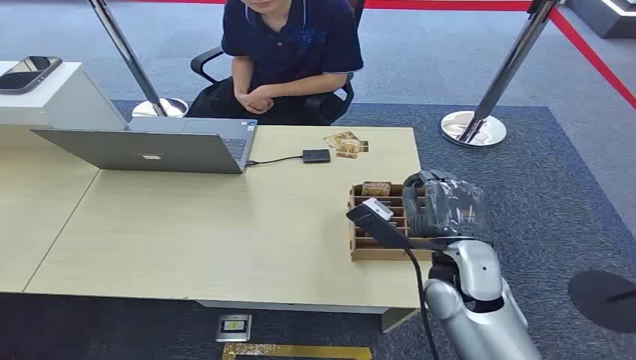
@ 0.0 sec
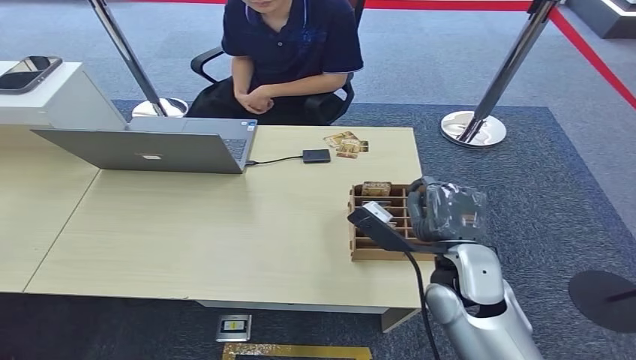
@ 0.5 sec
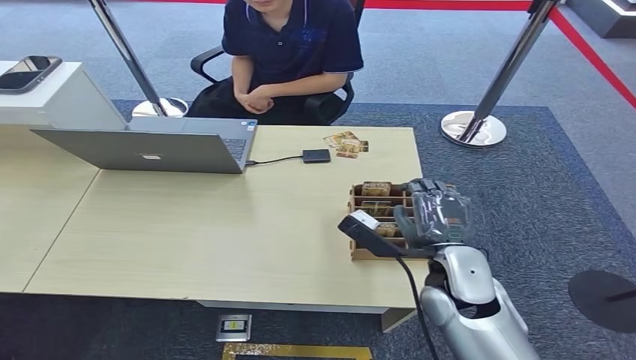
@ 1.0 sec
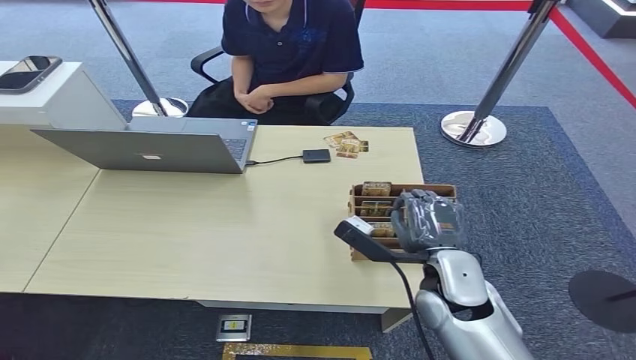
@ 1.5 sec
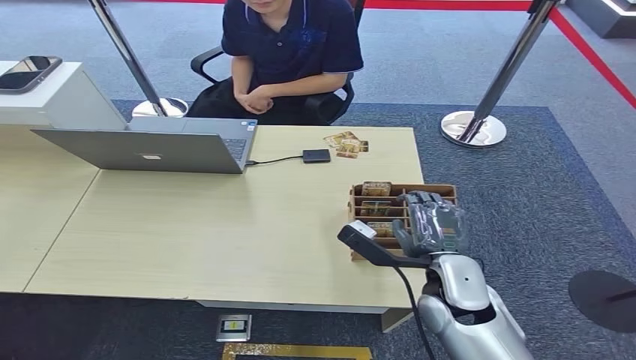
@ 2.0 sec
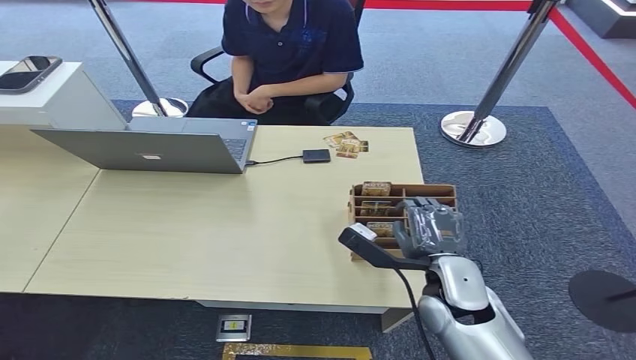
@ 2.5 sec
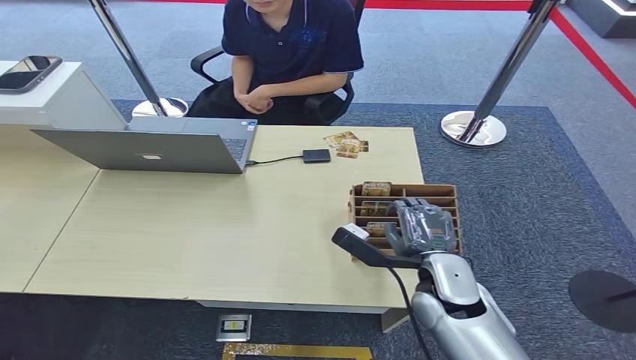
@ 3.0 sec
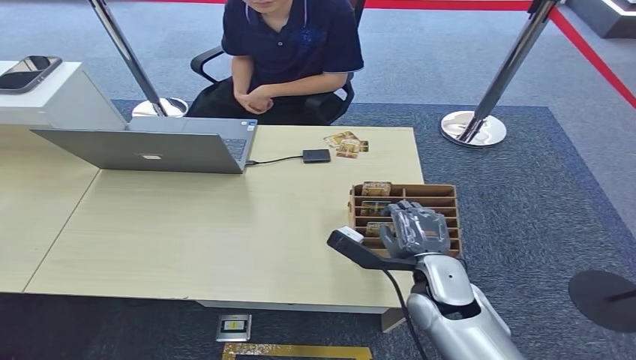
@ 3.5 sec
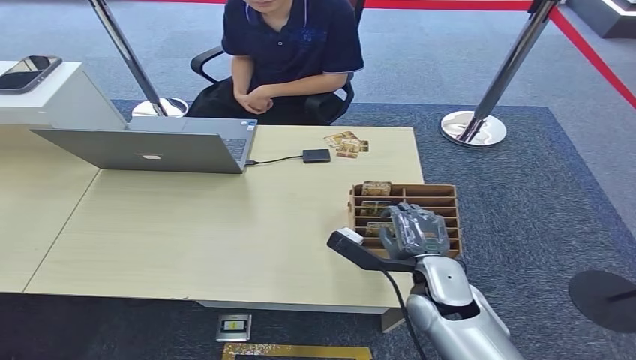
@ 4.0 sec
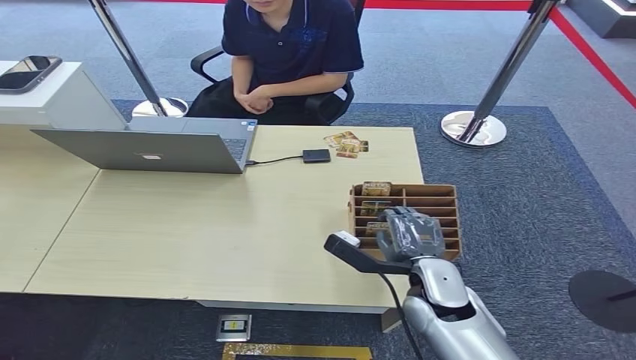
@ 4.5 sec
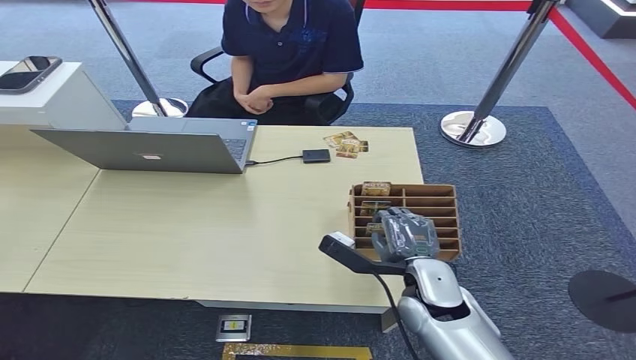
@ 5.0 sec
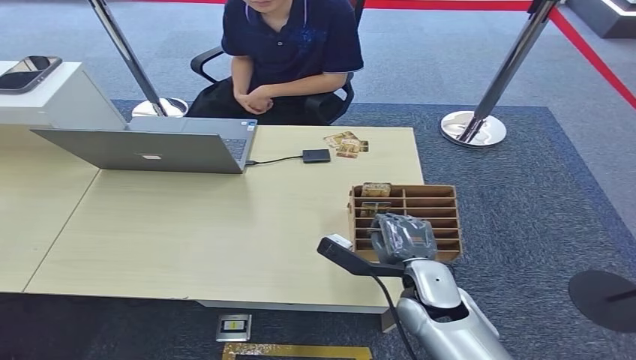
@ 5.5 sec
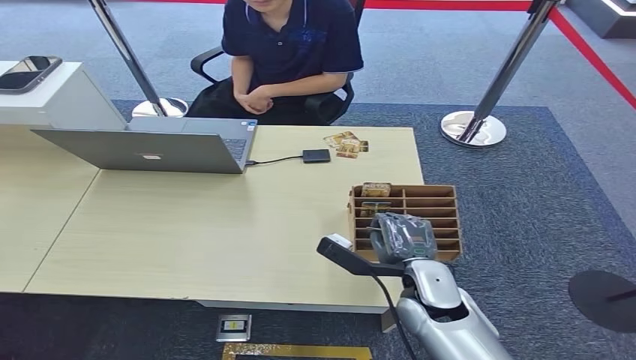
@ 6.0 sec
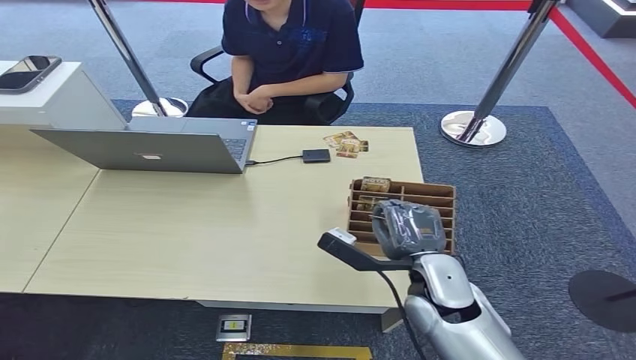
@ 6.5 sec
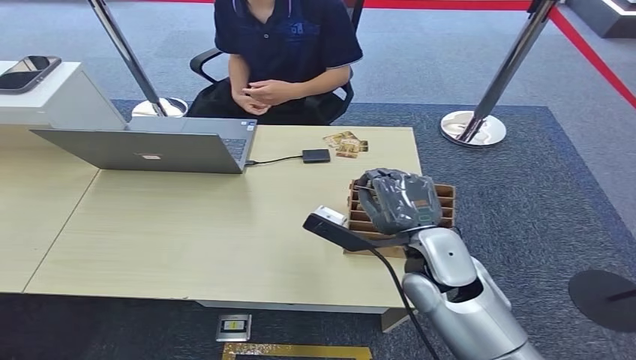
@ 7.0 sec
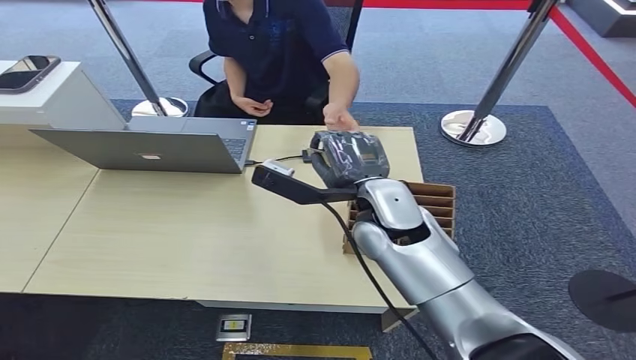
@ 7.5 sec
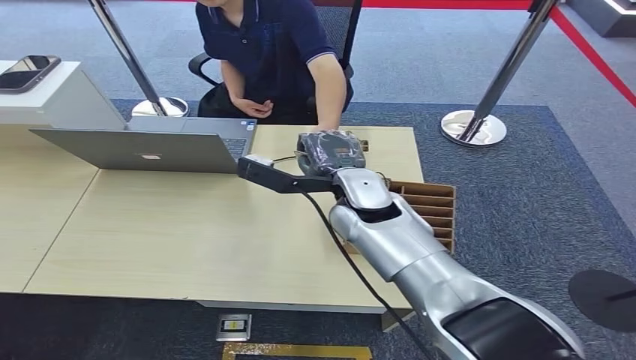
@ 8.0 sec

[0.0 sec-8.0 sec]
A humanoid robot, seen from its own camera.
Step, 0.0 sec to 7.0 sec: Pick up the key card from the card box.
Step, 7.5 sec to 8.0 sec: Hand the key card to the target.
2.0 sec to 6.0 sec: The hands make only small movements.
6.0 sec to 8.0 sec: The right hand moves upward, forward and to the left, some 20 cm.

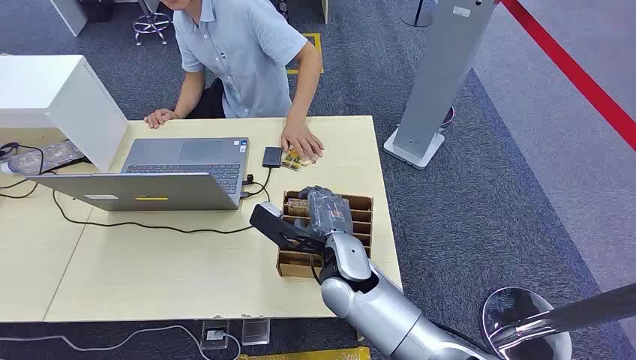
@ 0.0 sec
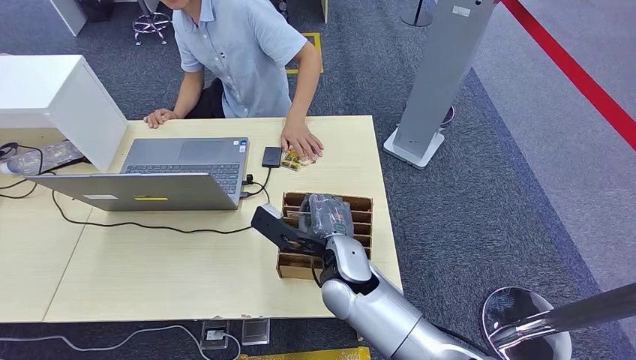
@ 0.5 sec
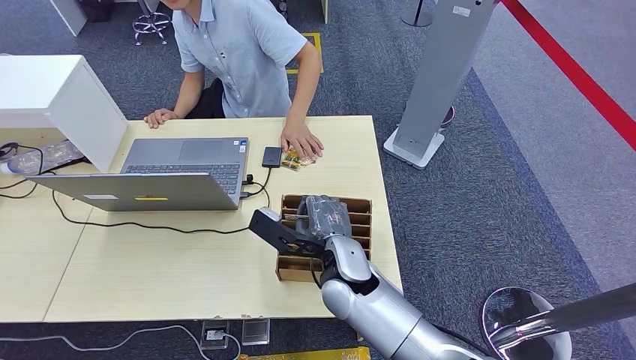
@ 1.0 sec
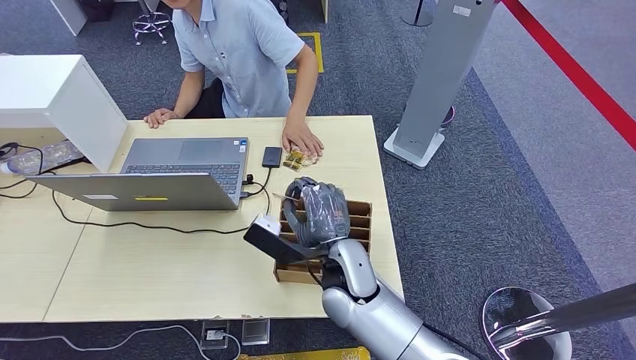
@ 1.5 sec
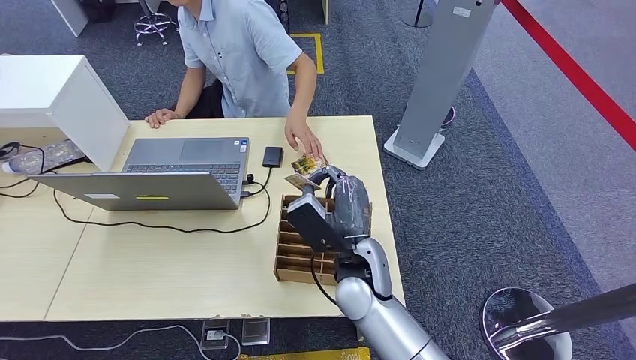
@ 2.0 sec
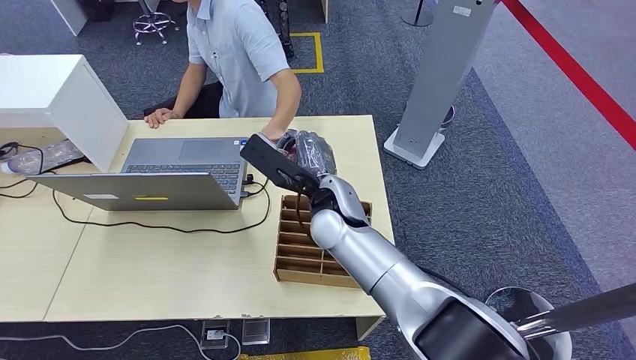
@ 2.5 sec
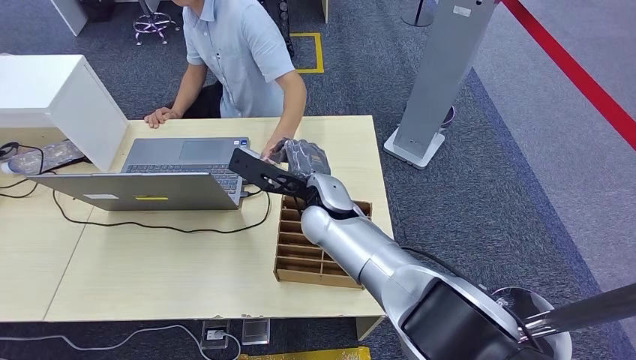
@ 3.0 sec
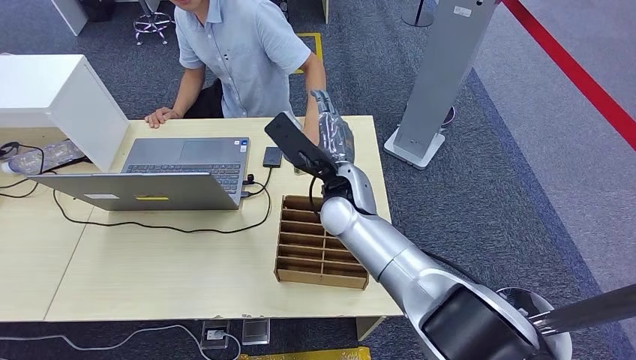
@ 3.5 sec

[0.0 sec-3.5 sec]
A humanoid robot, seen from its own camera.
Step, 0.0 sec to 1.5 sec: Pick up the key card from the card box.
Step, 3.0 sec to 3.5 sec: Hand the key card to the target.
2.0 sec to 3.5 sec: The right hand travels forward and upward by some 10 cm.
